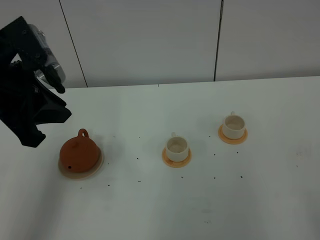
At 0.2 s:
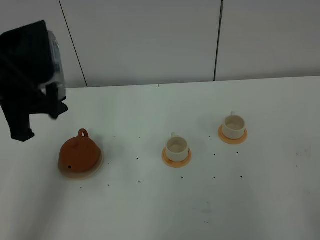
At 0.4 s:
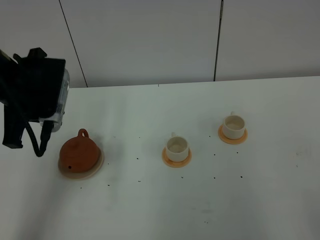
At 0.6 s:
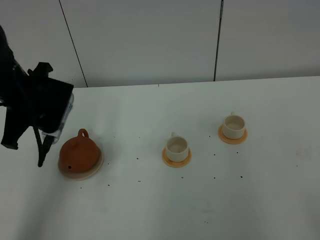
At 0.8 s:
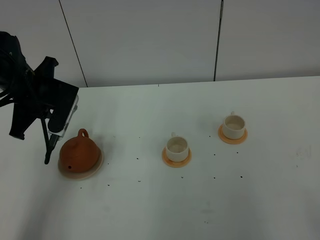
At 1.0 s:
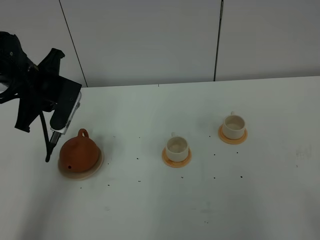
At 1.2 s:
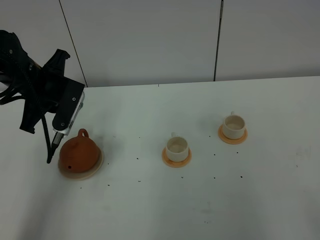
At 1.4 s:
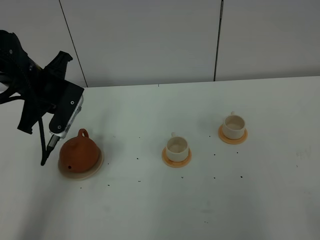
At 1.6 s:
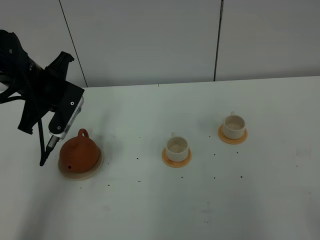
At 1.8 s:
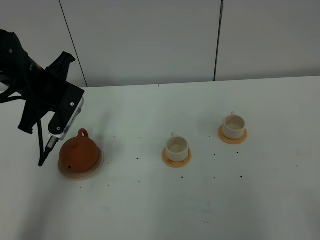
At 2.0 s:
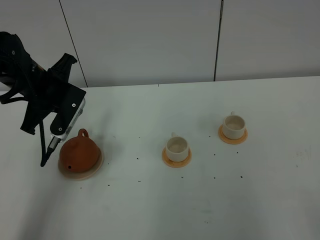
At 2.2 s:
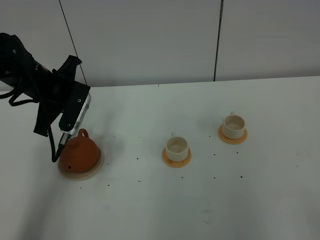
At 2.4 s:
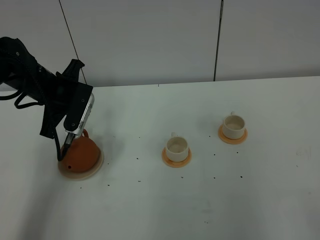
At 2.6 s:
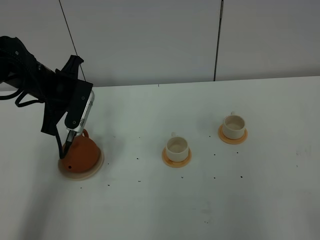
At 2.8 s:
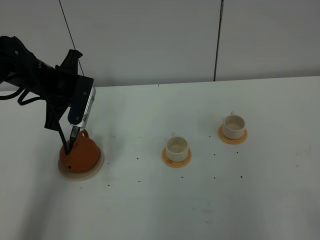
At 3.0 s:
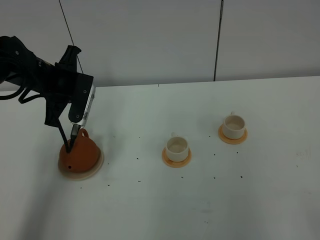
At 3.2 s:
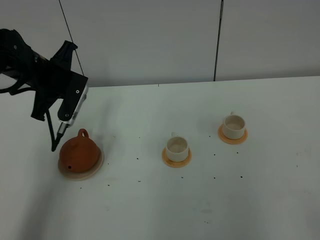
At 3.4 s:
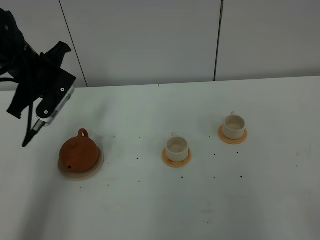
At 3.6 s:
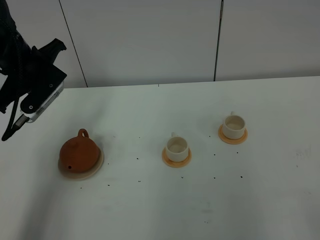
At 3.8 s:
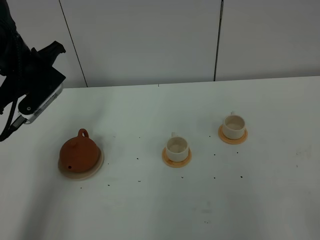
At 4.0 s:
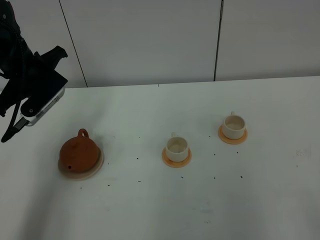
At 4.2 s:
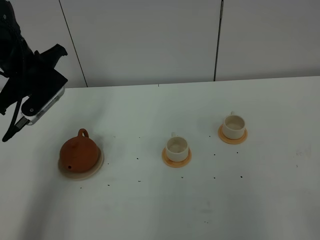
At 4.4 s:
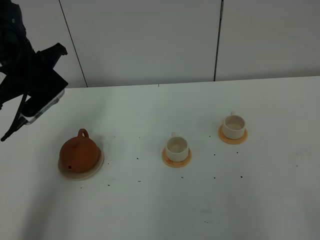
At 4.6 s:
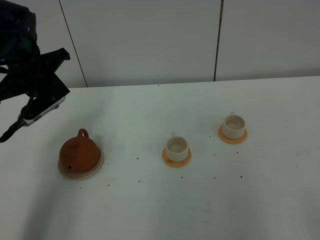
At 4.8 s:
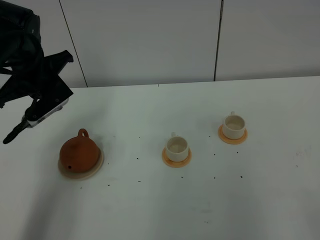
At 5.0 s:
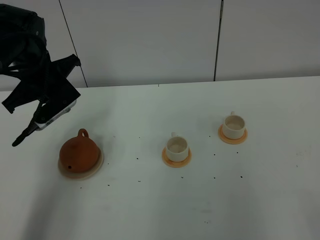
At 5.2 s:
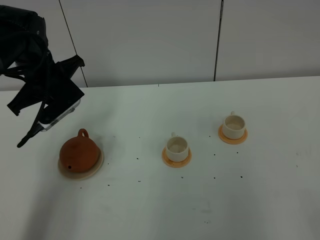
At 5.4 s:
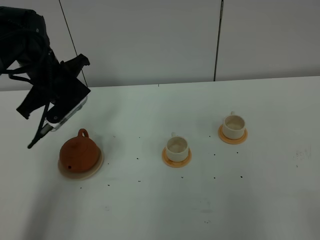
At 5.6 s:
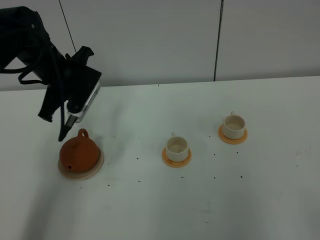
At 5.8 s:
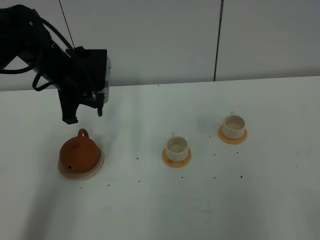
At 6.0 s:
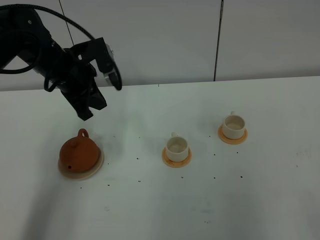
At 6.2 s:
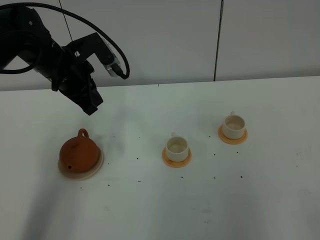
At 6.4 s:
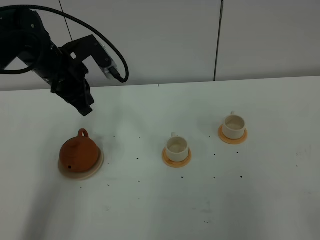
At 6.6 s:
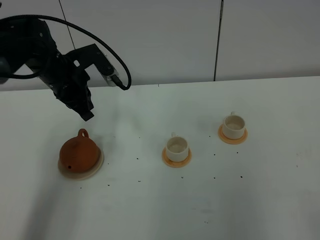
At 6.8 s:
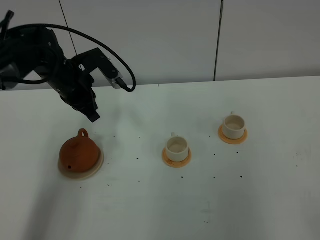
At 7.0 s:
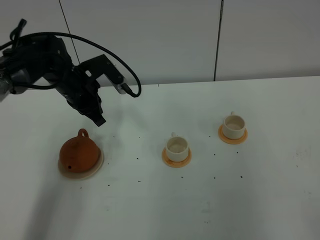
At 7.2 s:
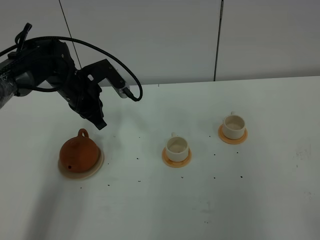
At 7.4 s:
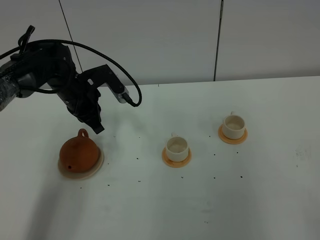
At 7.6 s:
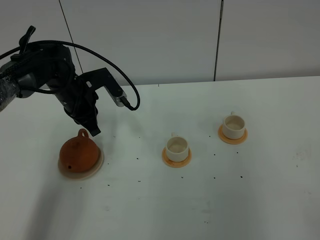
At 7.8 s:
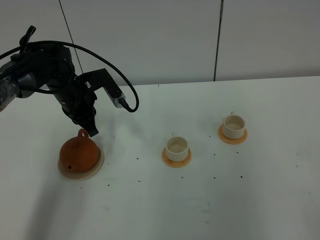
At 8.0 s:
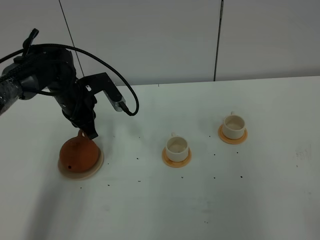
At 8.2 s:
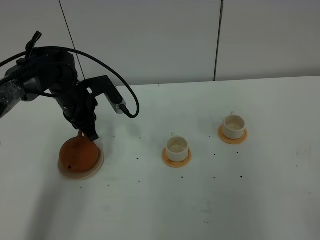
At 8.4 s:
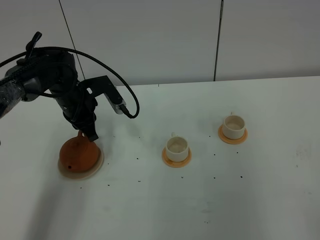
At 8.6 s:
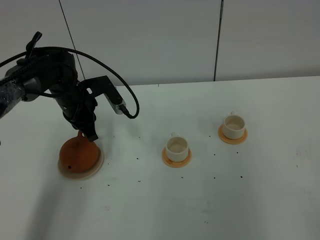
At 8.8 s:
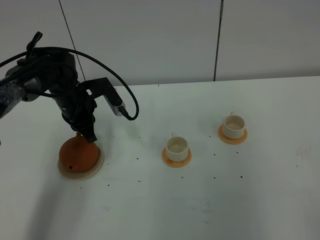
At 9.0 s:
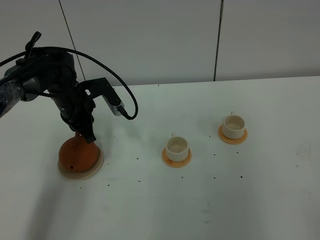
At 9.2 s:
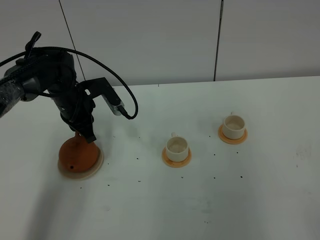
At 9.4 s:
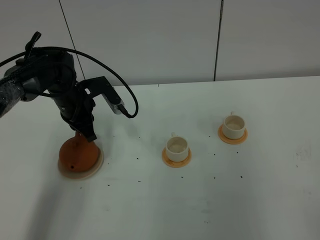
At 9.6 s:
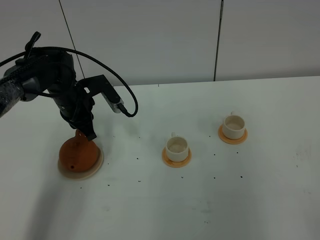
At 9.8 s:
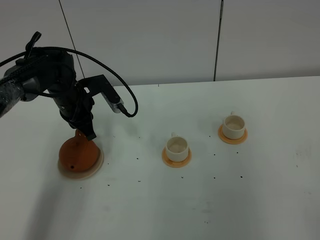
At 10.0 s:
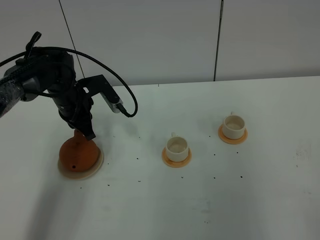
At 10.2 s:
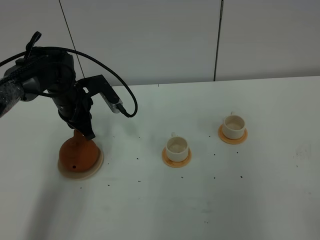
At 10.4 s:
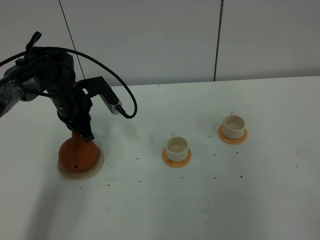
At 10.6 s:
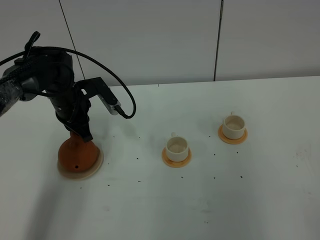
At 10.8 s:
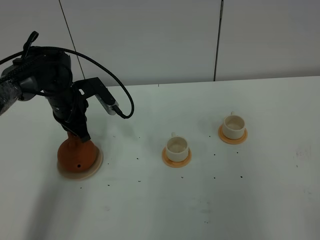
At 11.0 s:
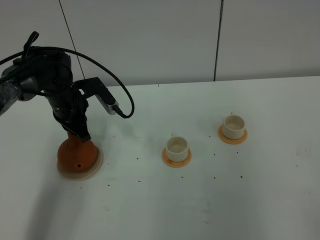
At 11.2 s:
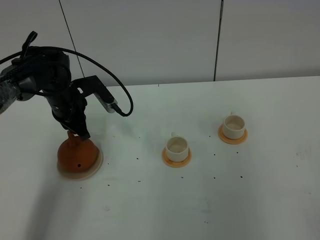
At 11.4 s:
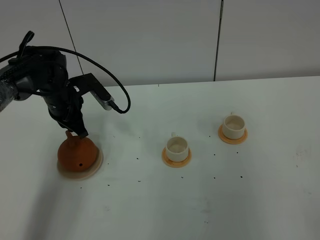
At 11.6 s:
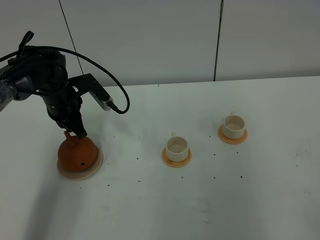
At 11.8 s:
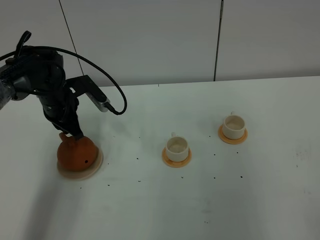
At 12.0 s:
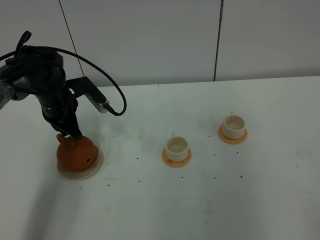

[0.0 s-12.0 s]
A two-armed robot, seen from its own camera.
Task of the whole recording: grasp the brown teapot and pour the tea into the two white teacups one by one, put the brown teapot back in its original place.
0.0 to 1.6 s: The left gripper shifts about 15 cm forward and downward, and closes its fingers.
1.6 to 3.0 s: The grippers move only a little.
3.0 to 4.4 s: The left gripper changes place by approximately 5 cm.
4.4 to 6.0 s: The left gripper heads to the right, covering approximately 5 cm.
6.0 to 7.6 s: The left gripper is displaced downward by roughly 10 cm.
7.6 to 9.0 s: The grippers stay close to where they were, moving slightly.
9.0 to 10.4 s: Both grippers stay put.
10.4 to 12.0 s: The grippers move only a little.

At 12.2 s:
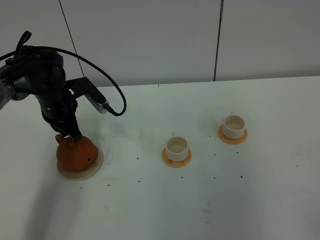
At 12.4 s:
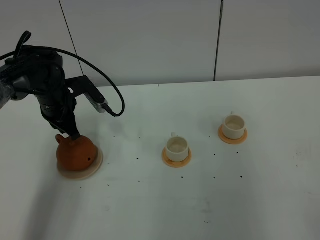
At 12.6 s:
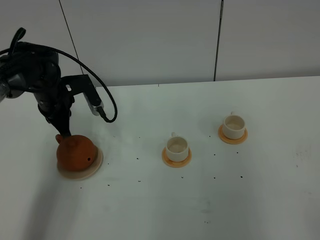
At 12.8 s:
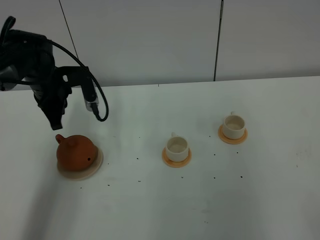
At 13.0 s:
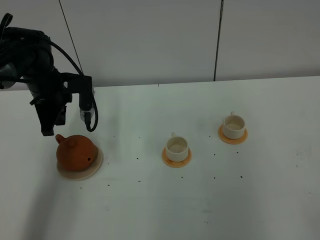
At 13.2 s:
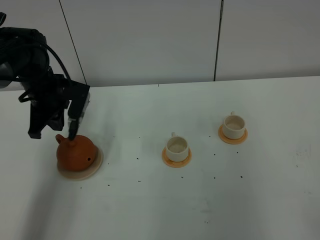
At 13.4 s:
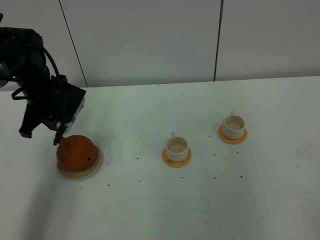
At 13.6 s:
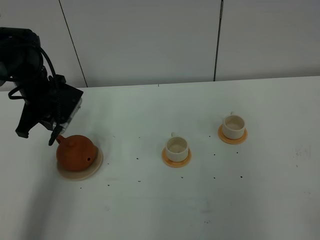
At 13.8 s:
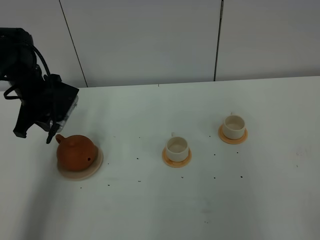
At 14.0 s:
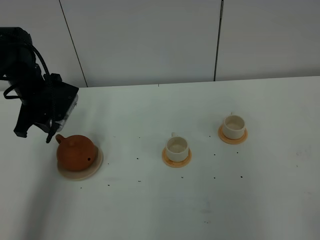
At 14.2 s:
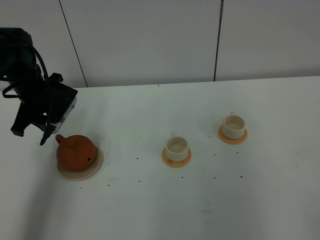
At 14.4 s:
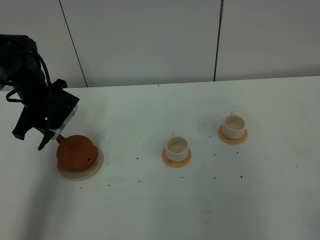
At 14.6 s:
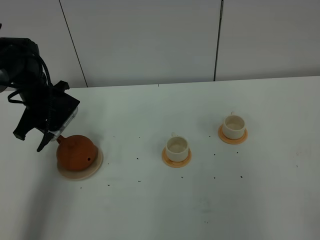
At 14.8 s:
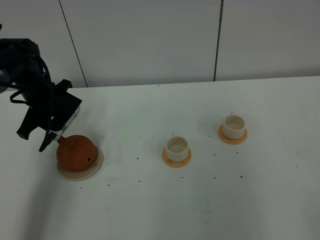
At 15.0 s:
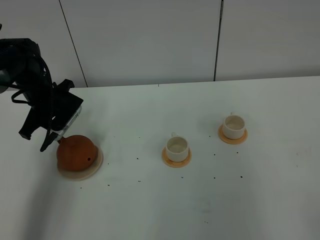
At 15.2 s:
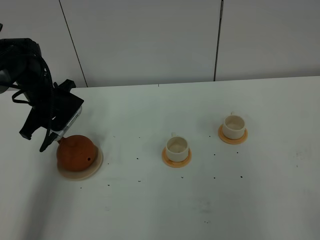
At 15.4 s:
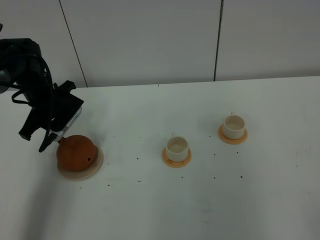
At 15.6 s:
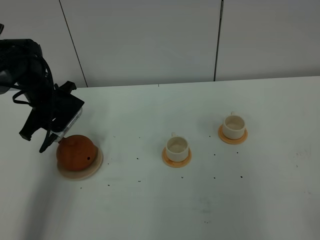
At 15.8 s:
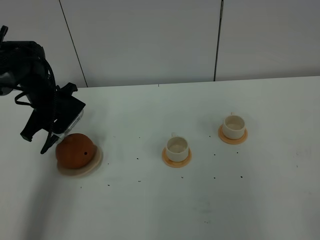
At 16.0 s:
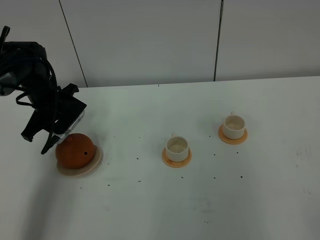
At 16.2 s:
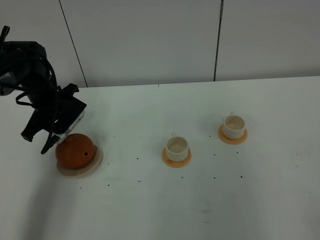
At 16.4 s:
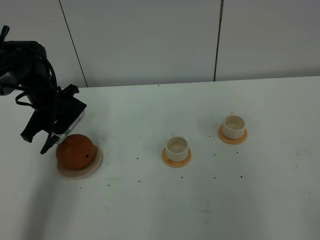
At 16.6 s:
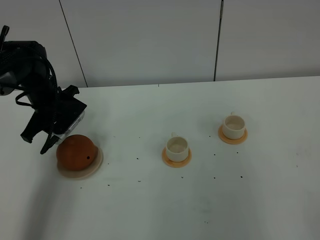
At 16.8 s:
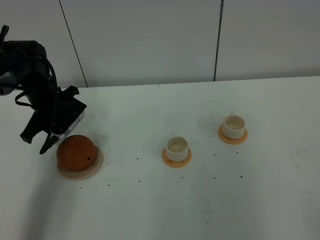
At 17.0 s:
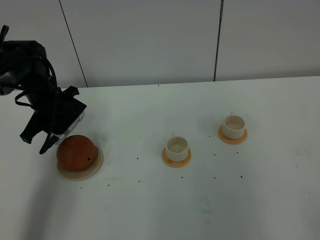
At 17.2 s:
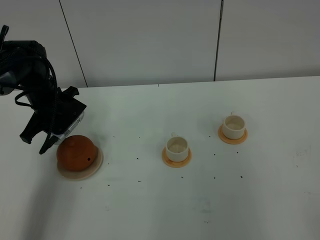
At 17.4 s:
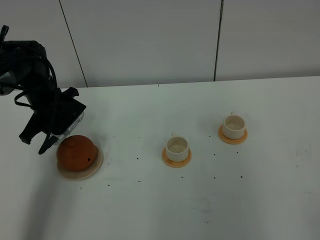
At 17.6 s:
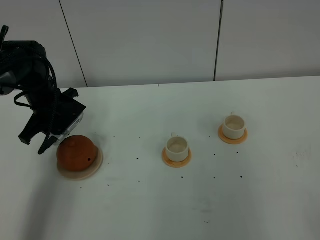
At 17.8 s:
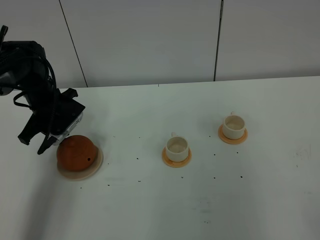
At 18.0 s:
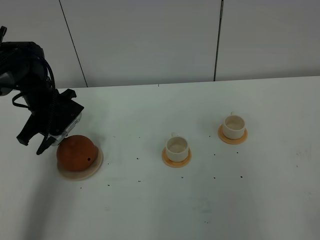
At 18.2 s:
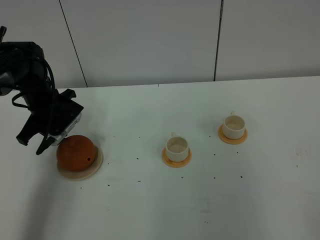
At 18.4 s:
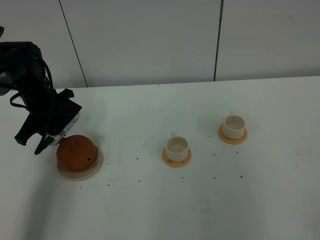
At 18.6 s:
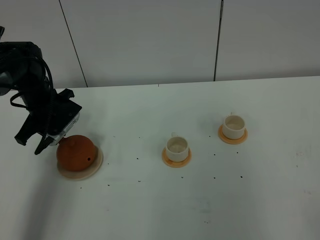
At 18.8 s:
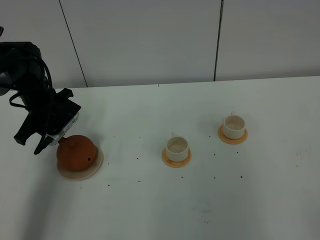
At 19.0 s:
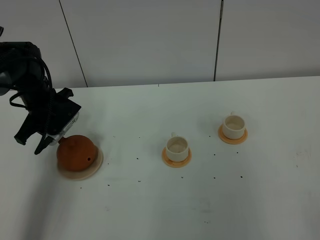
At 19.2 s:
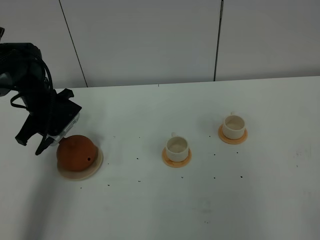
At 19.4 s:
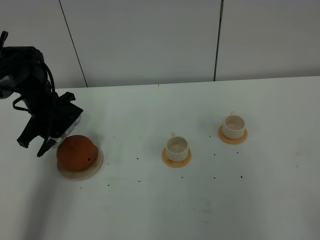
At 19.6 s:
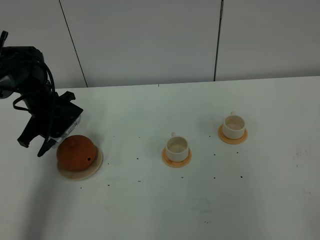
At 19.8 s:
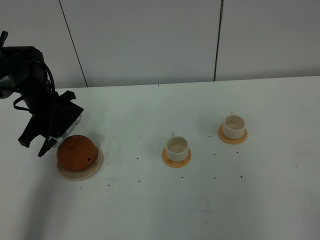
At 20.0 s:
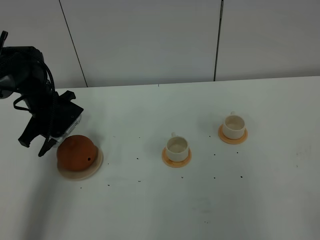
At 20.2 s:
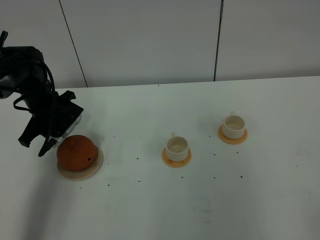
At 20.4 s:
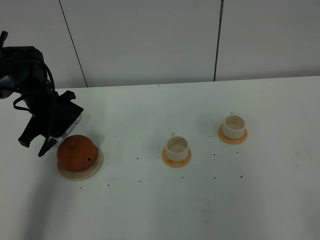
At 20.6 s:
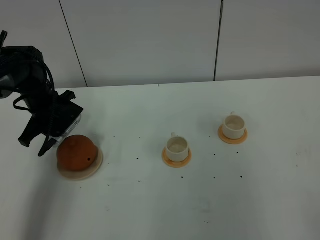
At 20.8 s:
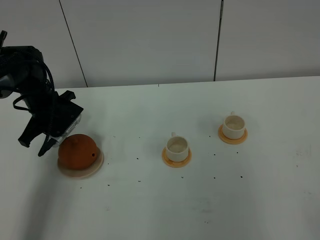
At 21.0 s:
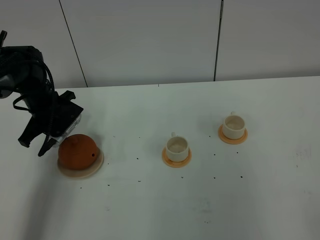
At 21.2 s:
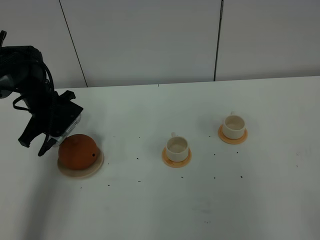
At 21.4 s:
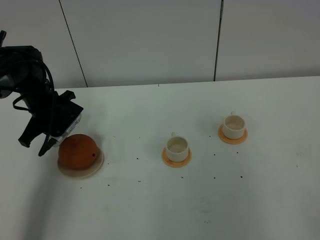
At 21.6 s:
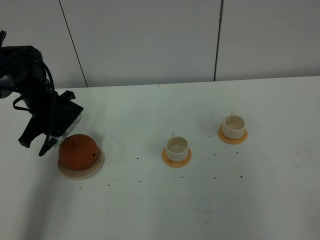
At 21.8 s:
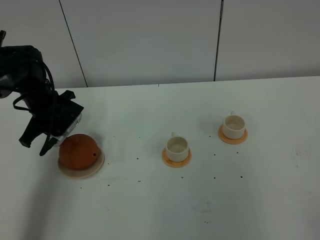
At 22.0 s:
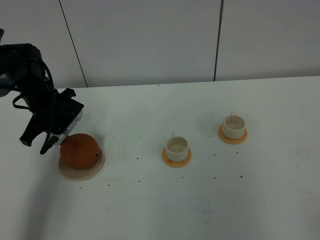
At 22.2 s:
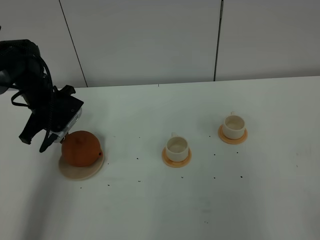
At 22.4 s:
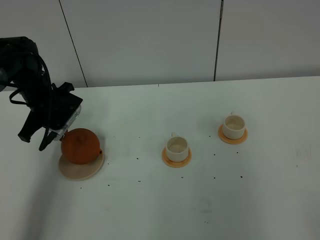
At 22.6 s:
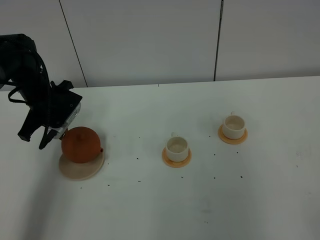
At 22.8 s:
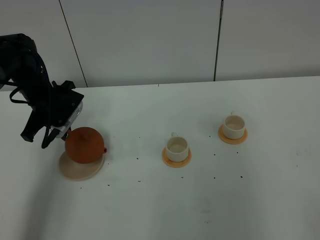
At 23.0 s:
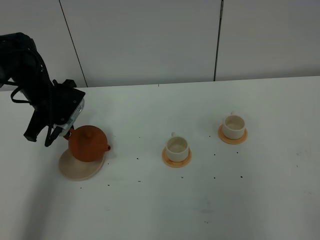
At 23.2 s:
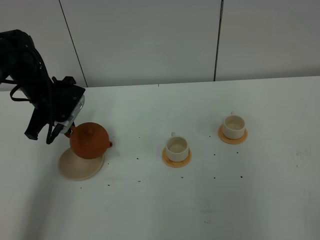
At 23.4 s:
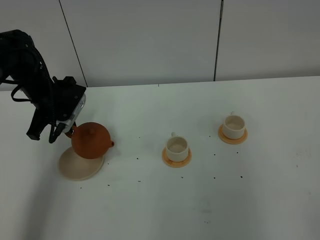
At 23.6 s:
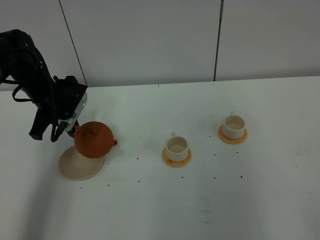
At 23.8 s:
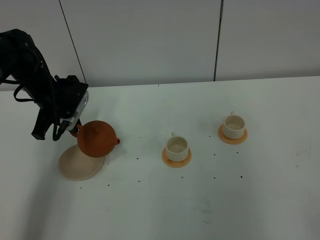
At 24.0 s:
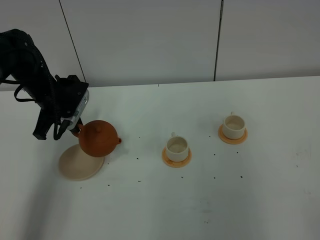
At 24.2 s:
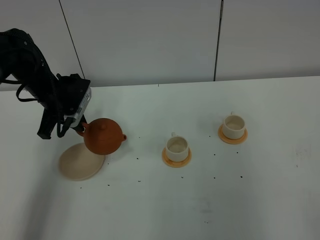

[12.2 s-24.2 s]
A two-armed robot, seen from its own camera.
Task of the whole recording: grasp the brown teapot and pour the tea into the two white teacups one by one, put the brown teapot back in its original place.
Step, 12.2 to 23.0 s: Pick up the teapot with the left gripper.
12.2 to 13.8 s: The left gripper changes place by roughly 5 cm, and opens.
13.8 to 15.2 s: The left gripper opens its fingers.
15.2 to 16.6 s: The two grippers keep their place.
16.6 to 18.2 s: Both grippers stay put.
18.2 to 19.8 s: Both grippers stay about where they are.
21.2 to 22.6 s: There are only small adjustments of the grippers.
22.6 to 24.2 s: The grippers make only small movements.
